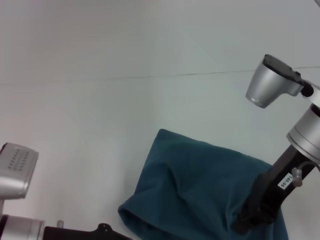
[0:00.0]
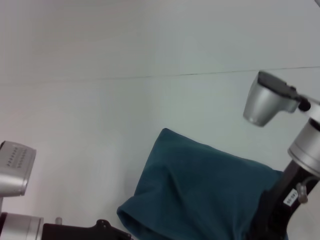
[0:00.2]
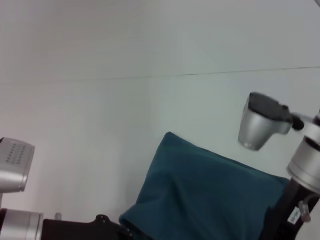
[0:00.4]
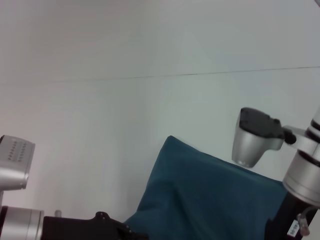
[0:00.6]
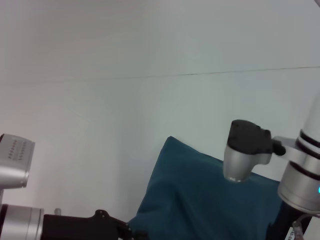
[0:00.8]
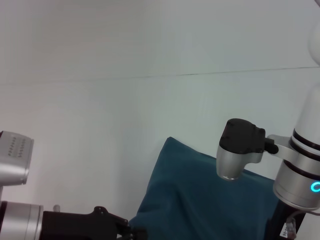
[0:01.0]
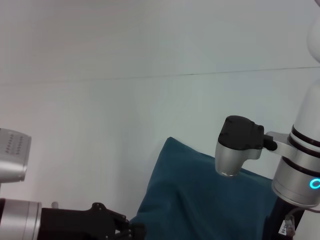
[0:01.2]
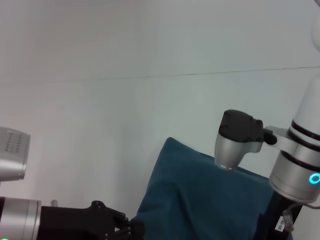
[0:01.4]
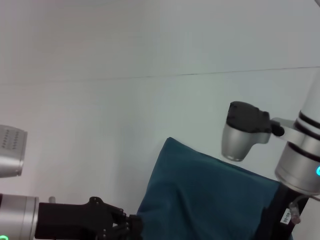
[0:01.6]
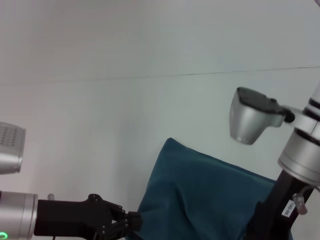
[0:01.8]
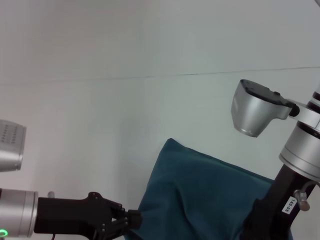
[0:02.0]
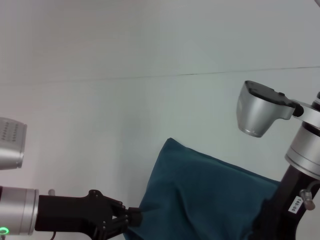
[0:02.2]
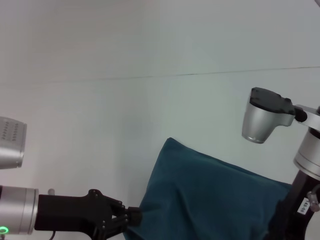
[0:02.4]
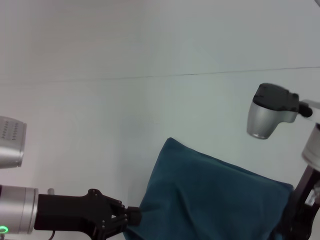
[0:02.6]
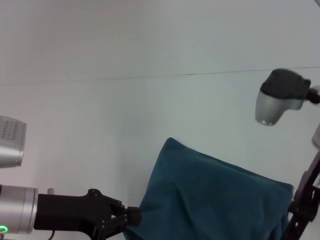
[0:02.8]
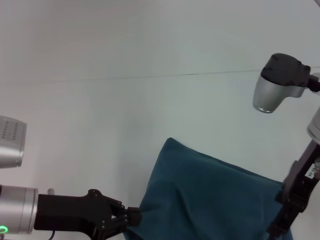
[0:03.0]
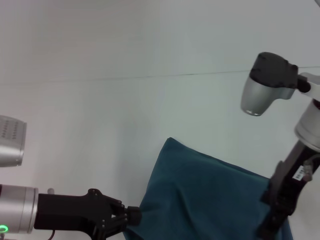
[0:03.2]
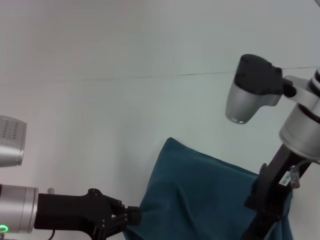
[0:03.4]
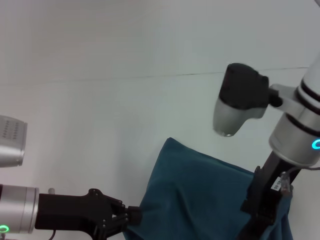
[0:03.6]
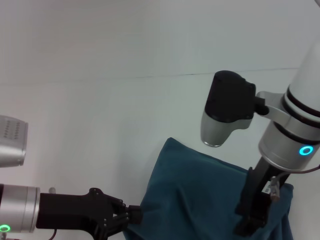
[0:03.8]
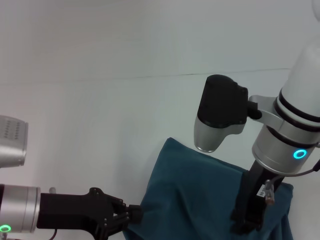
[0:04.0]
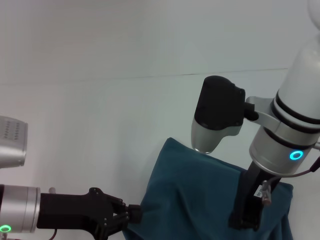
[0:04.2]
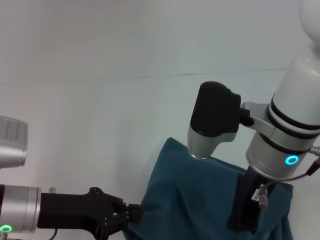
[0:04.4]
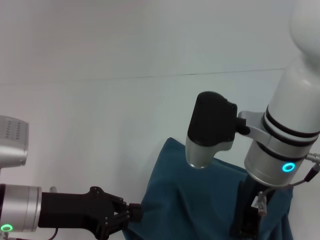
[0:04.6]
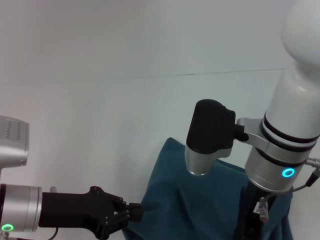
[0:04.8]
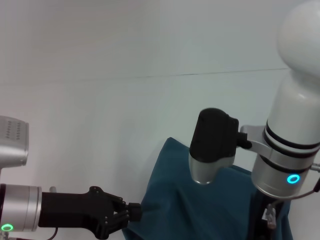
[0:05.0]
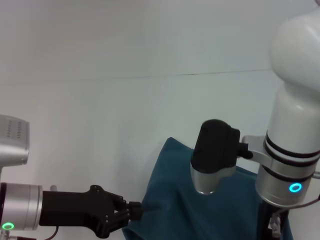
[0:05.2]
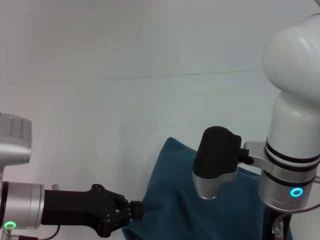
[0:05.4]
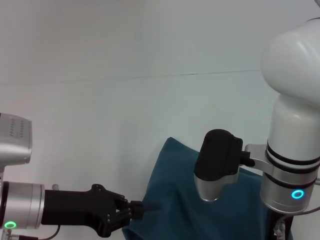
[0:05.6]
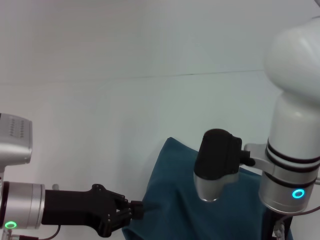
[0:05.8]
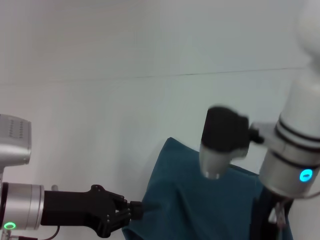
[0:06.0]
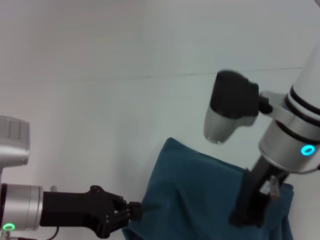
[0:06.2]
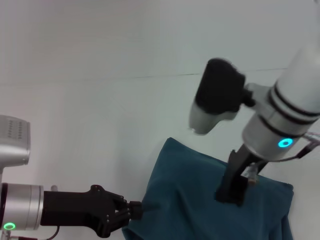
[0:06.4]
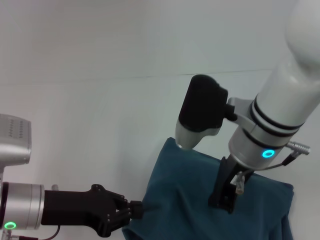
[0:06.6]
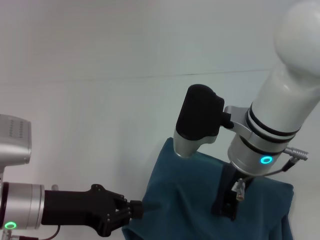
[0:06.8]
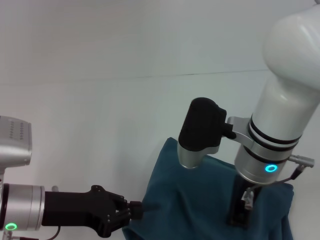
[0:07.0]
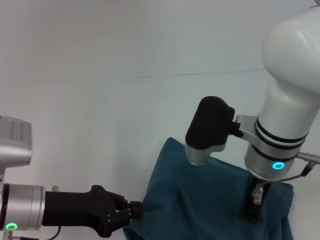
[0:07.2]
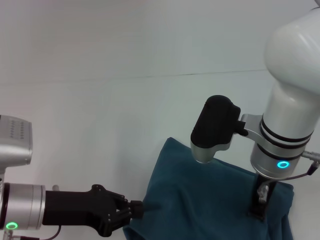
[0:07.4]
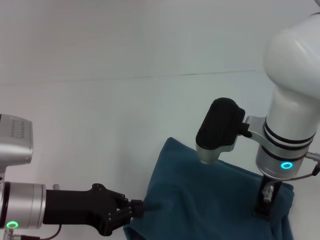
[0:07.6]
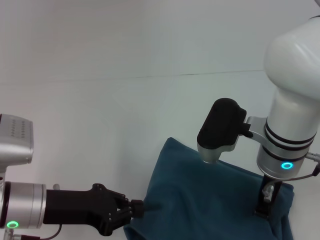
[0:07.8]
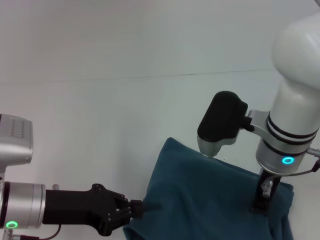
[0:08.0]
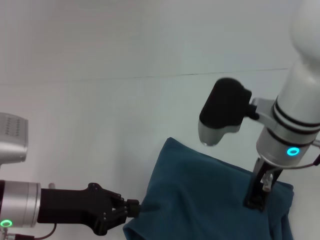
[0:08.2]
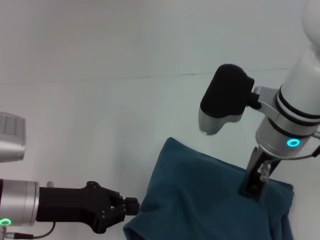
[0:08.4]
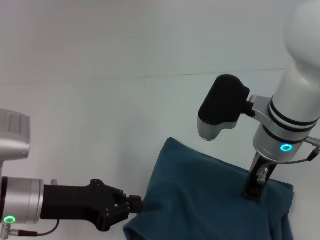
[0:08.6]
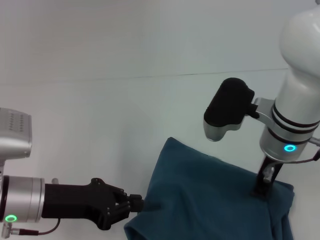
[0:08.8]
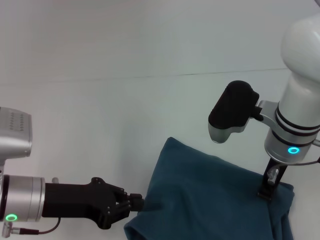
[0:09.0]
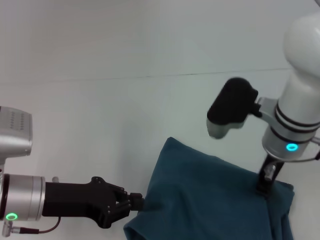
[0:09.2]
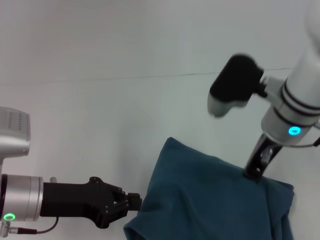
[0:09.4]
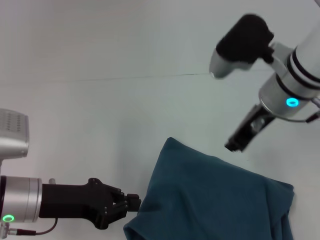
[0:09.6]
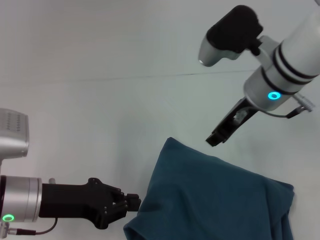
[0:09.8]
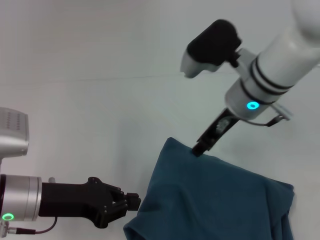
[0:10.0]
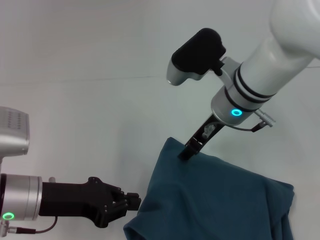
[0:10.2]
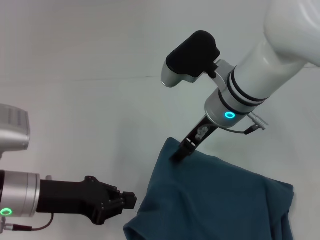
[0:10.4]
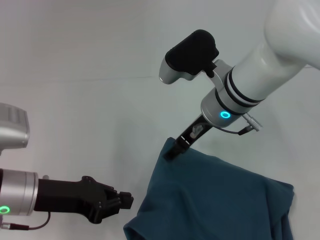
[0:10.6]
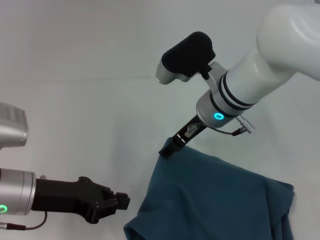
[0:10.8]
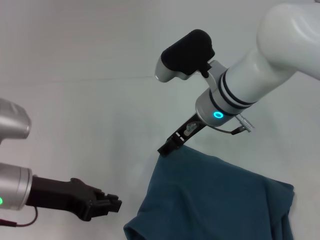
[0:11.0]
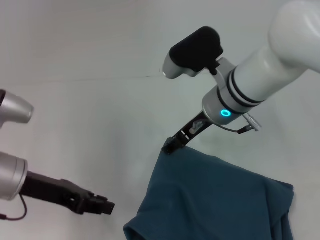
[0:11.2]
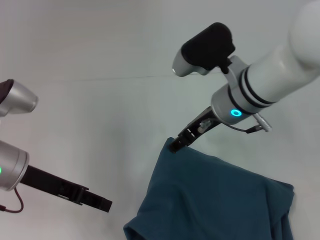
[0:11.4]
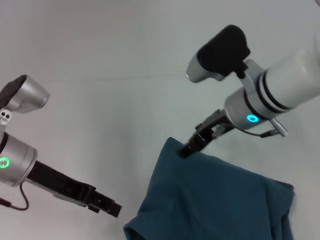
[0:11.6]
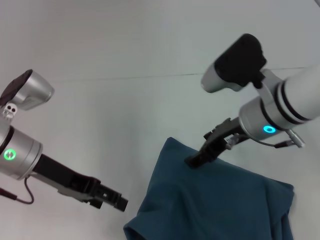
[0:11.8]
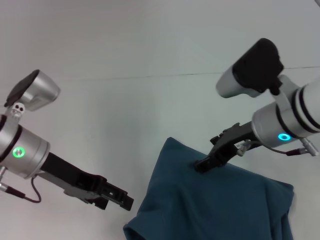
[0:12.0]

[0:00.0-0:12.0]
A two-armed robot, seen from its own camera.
0:00.0 to 0:01.6: The right gripper opens up.
0:01.6 to 0:03.0: The right gripper shifts by roughly 5 cm, and opens.
0:03.0 to 0:04.4: The right gripper goes some 10 cm to the left, and closes up.
0:04.4 to 0:06.0: The grippers stay close to where they were, moving slightly.
0:06.0 to 0:07.6: The right gripper ends up roughly 5 cm from where it was.
0:07.6 to 0:09.0: The grippers make only small movements.
0:09.0 to 0:10.4: The right gripper goes roughly 5 cm to the left, and opens up.
0:10.4 to 0:12.0: The left gripper moves forward, approximately 5 cm, and opens up; the right gripper heads to the right, covering about 5 cm.

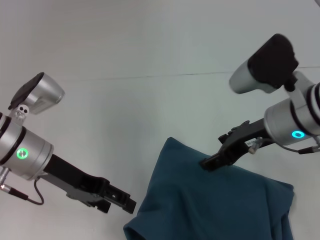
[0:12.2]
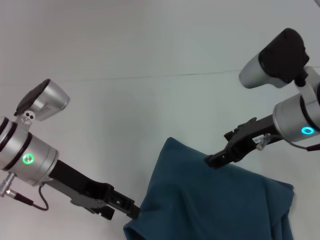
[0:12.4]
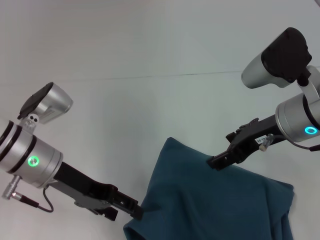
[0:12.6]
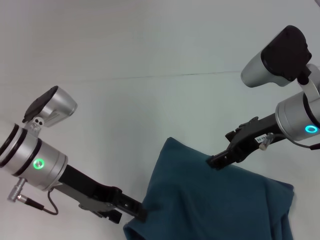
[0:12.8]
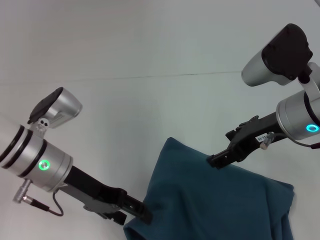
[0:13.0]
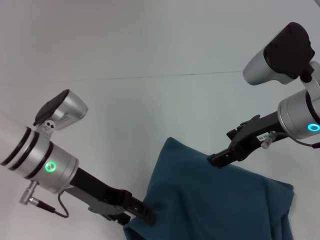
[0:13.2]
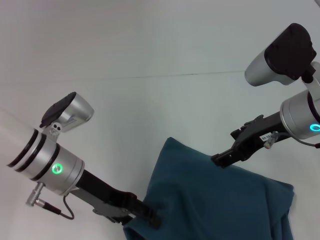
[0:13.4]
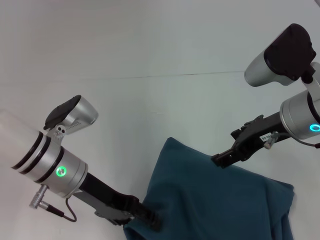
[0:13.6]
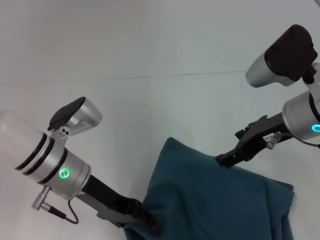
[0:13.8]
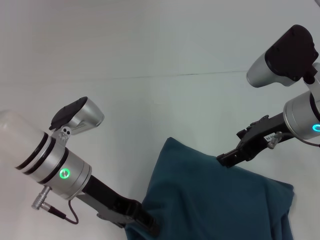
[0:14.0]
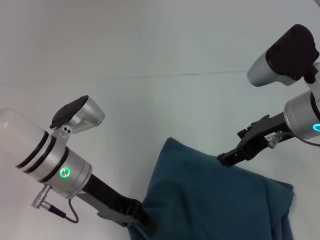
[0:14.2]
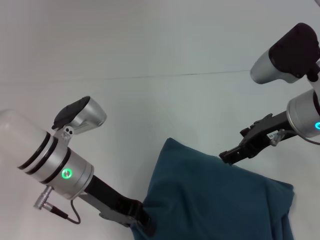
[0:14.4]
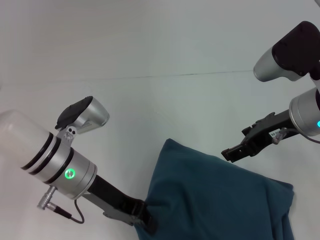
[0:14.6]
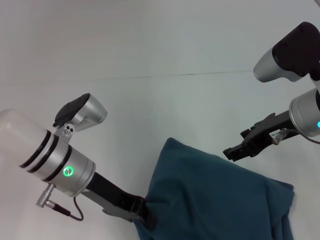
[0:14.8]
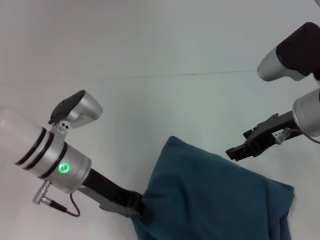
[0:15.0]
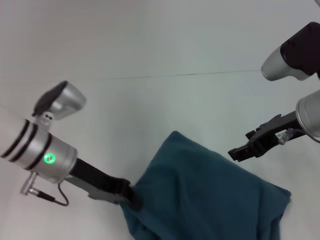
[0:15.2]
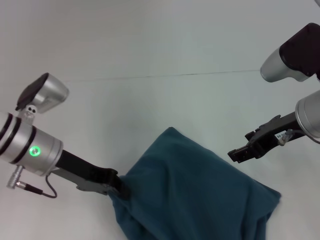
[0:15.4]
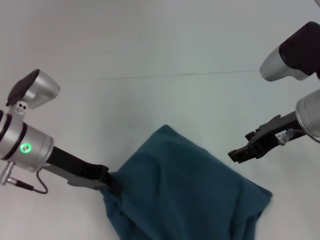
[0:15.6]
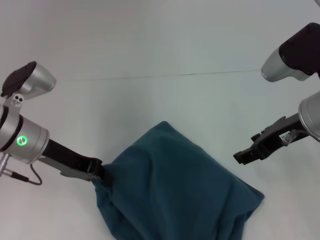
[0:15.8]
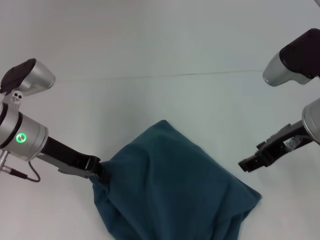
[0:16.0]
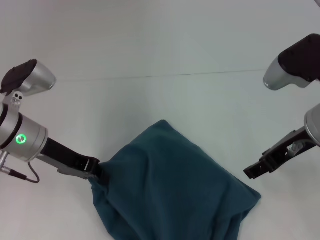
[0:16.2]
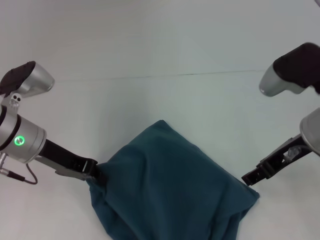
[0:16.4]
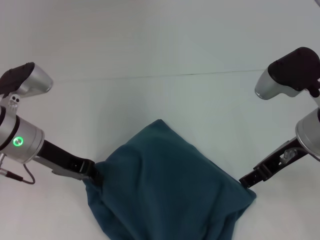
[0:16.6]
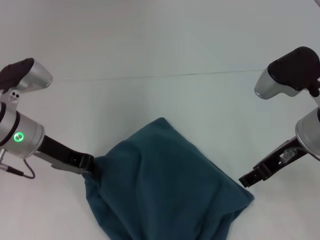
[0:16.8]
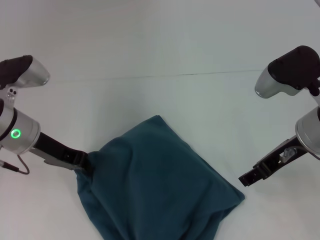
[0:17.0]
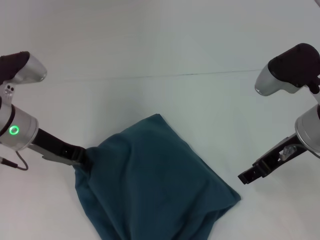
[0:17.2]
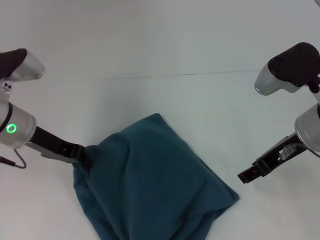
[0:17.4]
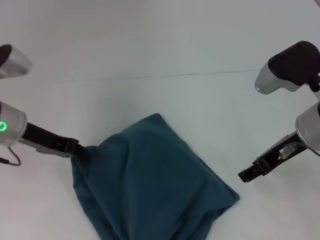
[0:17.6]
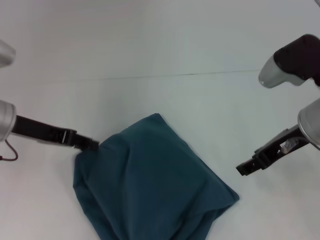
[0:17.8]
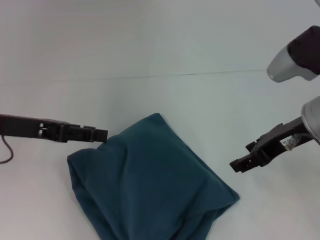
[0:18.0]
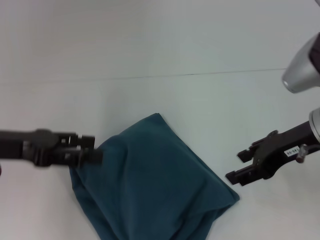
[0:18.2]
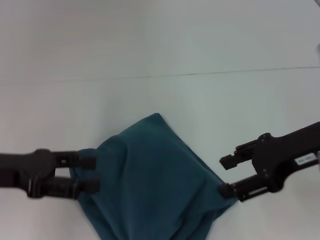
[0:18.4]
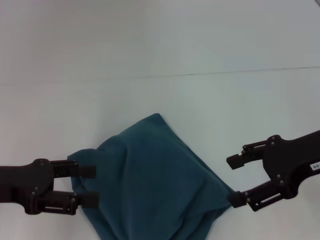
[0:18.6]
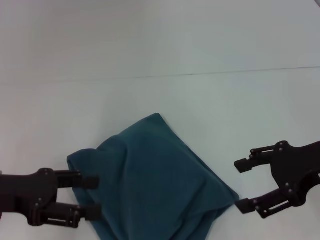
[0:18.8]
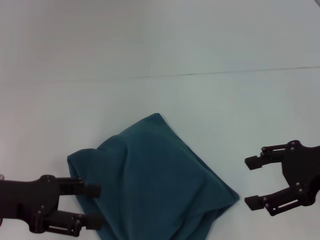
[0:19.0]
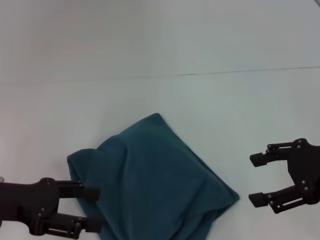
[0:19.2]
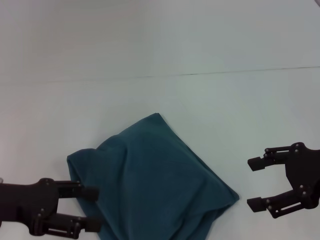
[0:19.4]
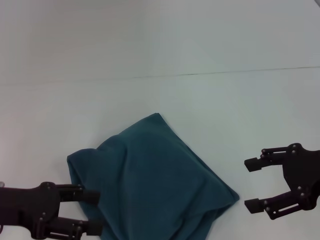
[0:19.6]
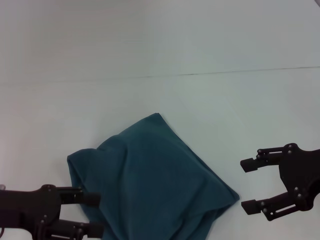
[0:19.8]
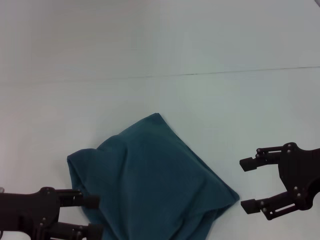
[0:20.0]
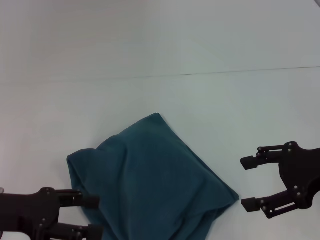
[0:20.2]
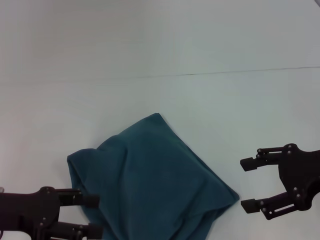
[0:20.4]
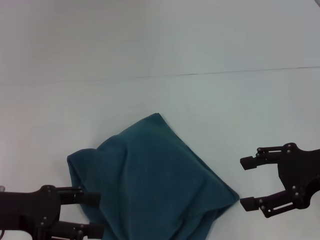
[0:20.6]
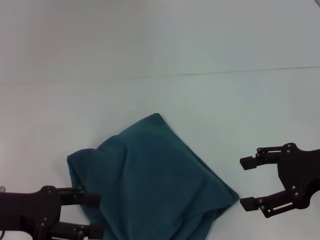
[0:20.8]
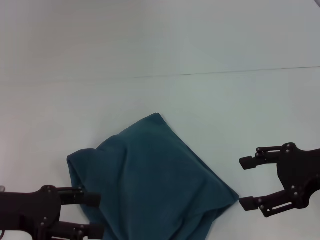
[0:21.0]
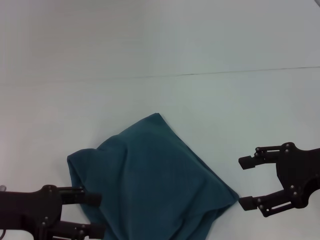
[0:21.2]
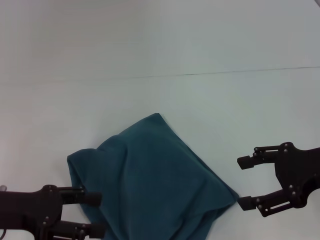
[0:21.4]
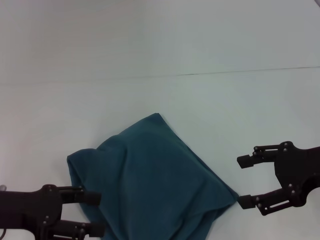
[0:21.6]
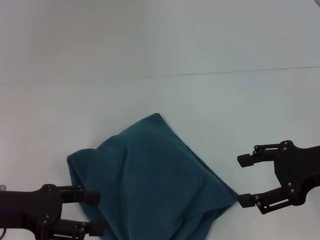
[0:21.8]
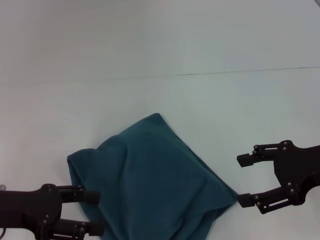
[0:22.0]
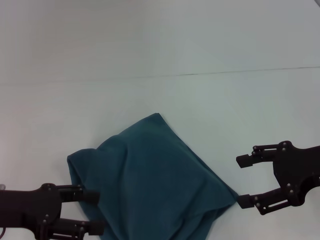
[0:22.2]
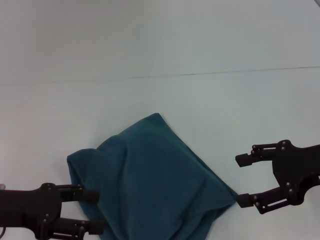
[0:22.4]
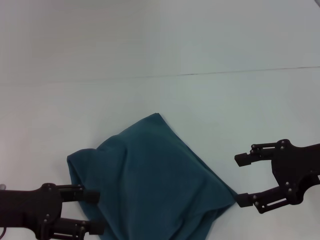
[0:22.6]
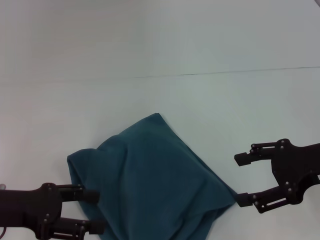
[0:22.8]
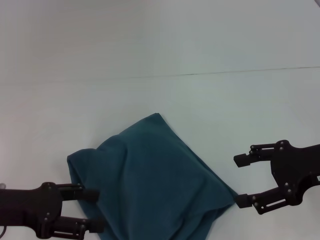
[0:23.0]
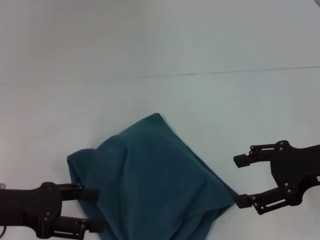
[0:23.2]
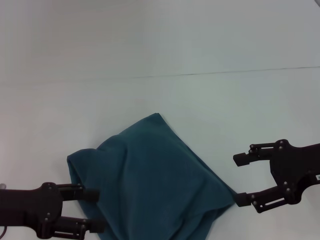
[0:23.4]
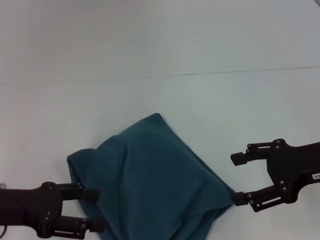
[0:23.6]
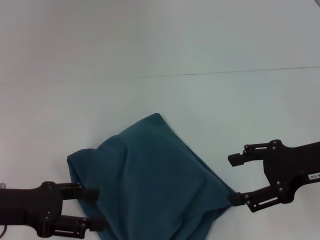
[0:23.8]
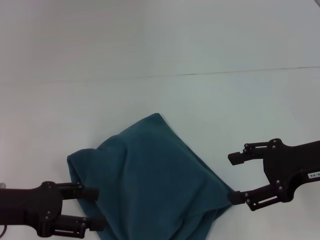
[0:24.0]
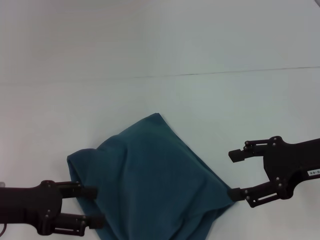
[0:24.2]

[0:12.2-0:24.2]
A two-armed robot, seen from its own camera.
0:12.2 to 0:13.8: The left gripper shifts by some 5 cm.
0:13.8 to 0:15.2: The left gripper closes.
0:16.6 to 0:18.2: The left gripper moves to the left and backward, roughly 10 cm, and opens up.
0:18.2 to 0:19.8: The grippers both shift backward by roughly 5 cm.
0:19.8 to 0:22.6: The two grippers keep their place.
0:22.6 to 0:24.2: Neither gripper changes place.
